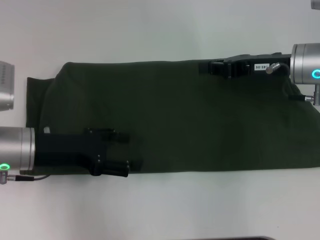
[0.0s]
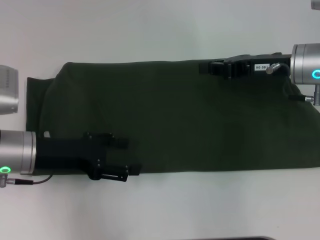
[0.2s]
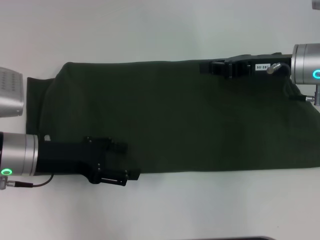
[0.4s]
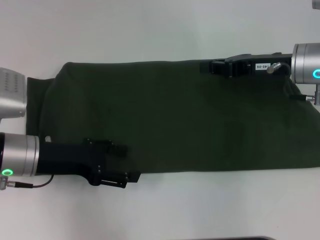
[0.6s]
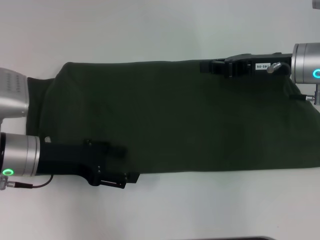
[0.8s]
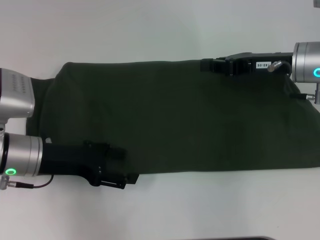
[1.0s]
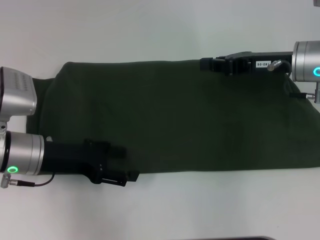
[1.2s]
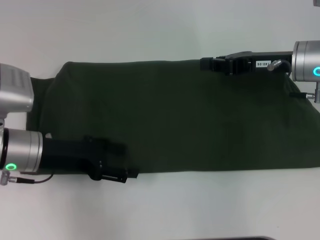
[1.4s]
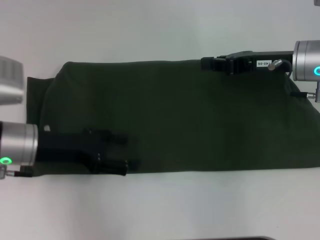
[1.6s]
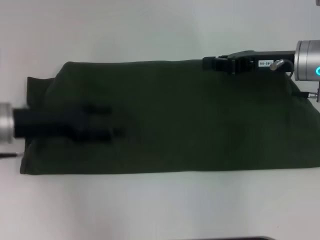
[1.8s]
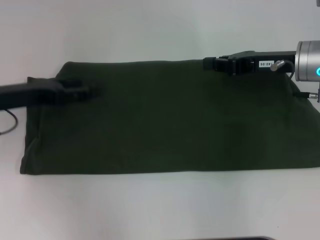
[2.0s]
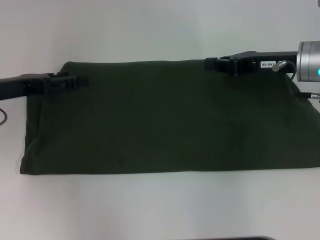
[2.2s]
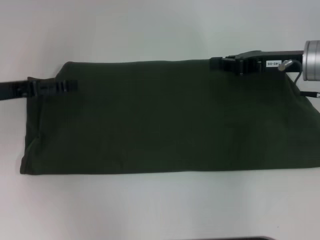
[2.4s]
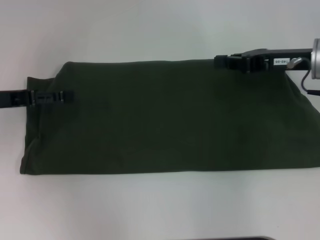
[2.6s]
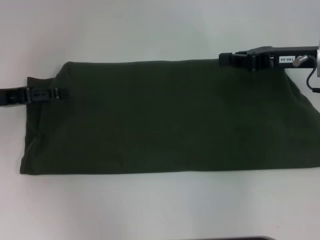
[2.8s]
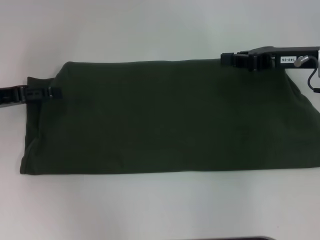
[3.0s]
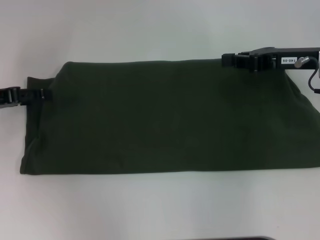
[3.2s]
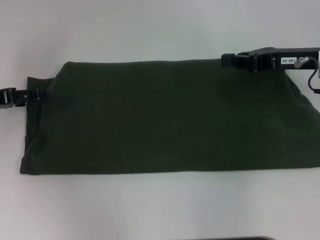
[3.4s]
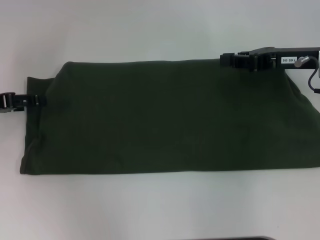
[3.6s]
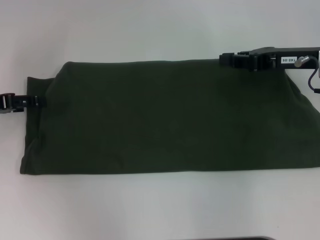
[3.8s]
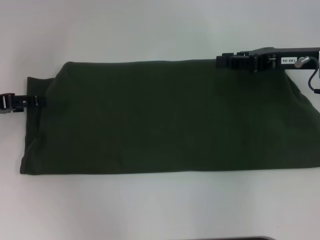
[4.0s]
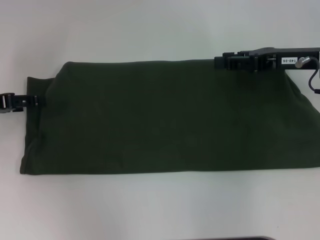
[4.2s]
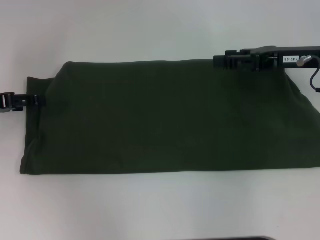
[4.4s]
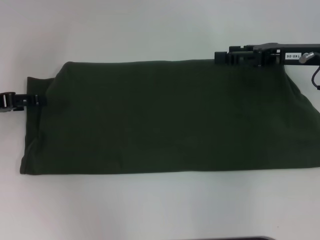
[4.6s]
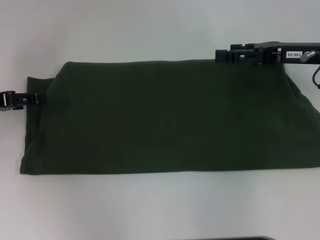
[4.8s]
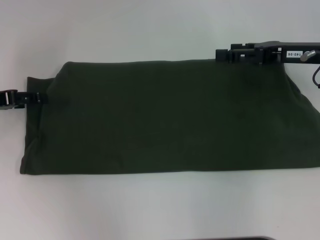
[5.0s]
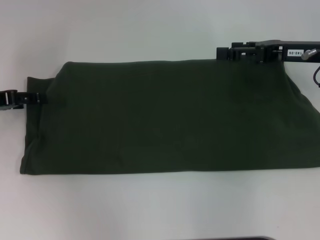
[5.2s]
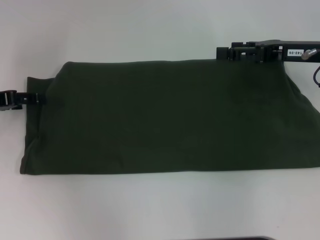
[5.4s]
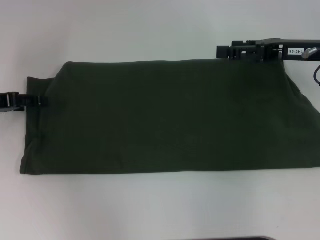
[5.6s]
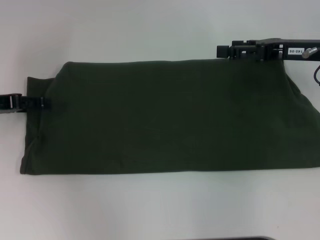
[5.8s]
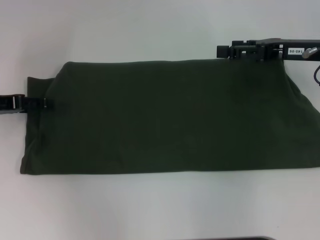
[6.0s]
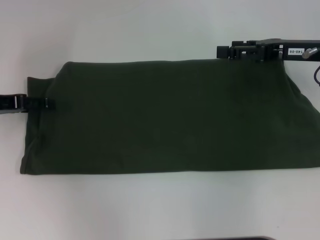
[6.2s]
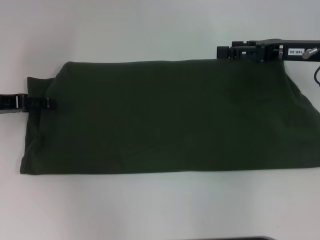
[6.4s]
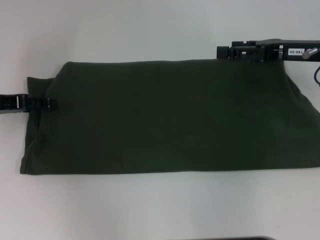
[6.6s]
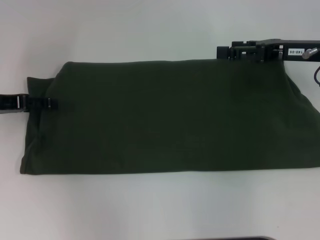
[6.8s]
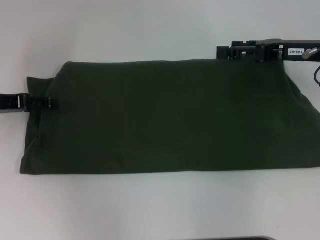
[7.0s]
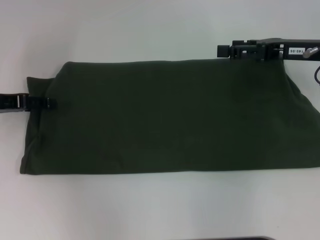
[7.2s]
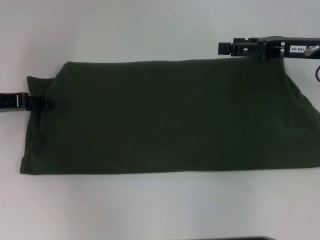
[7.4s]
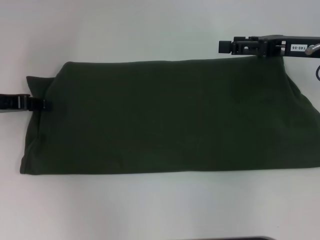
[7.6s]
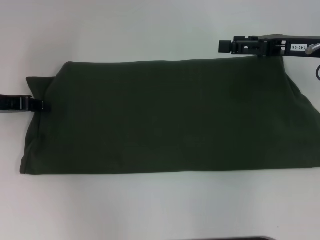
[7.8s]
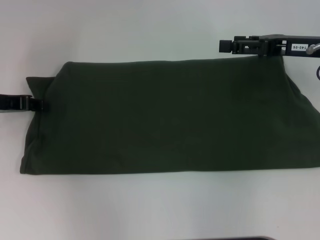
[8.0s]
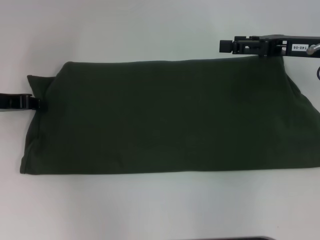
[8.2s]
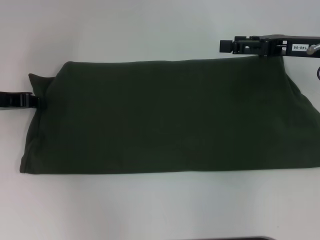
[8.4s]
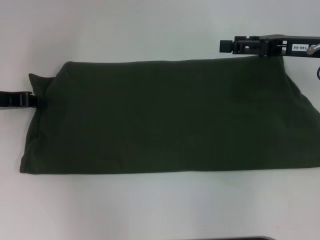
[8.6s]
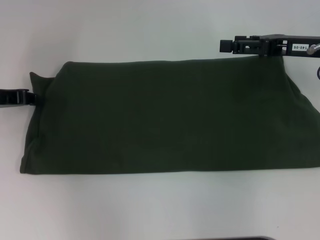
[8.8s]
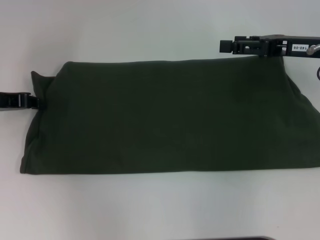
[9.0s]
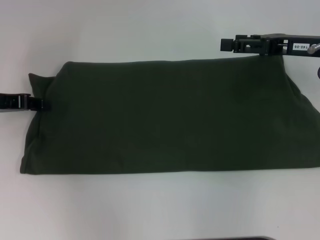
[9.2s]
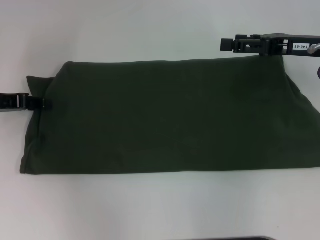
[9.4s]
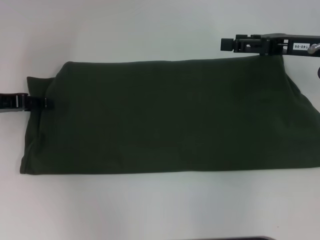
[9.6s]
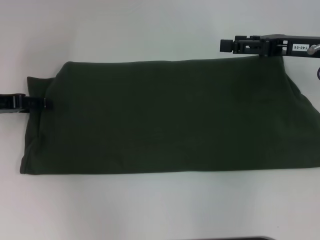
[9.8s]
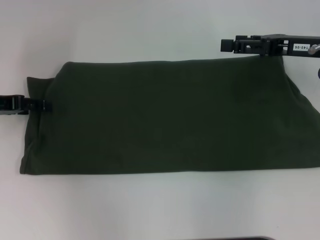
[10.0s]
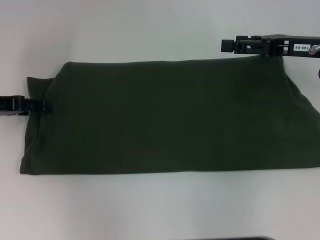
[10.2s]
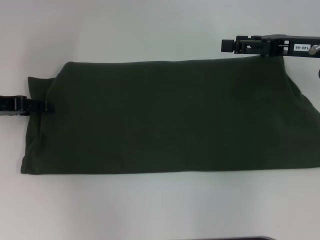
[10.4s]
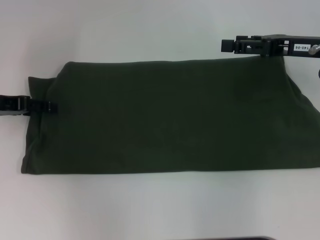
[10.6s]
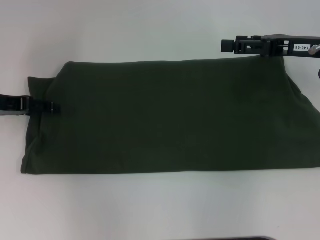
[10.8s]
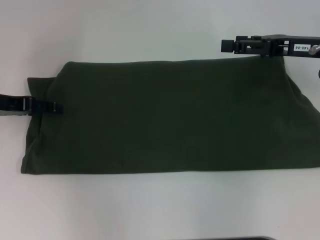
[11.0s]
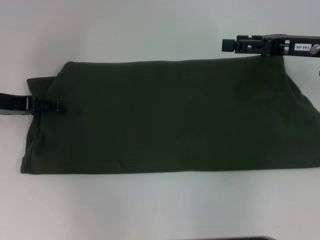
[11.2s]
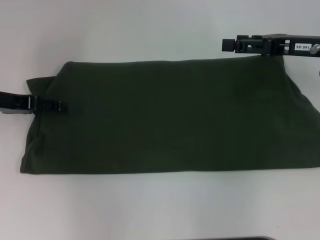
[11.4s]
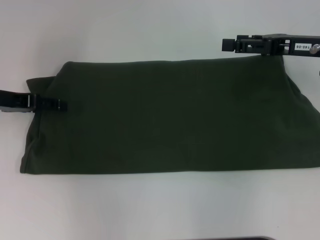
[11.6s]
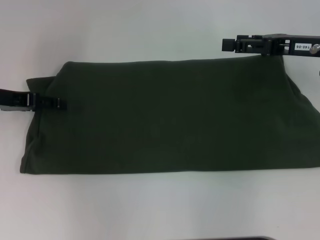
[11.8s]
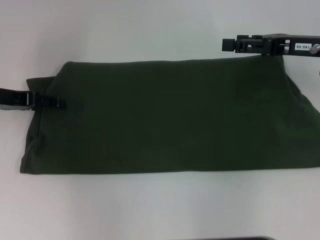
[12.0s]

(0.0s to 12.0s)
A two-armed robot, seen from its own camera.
0.0s - 1.6s: The grippers move only a little.
1.6s - 3.0s: The left gripper goes some 10 cm to the left.
3.0s - 4.4s: The right gripper opens up.
4.4s - 6.0s: The right gripper opens up.
6.0s - 7.6s: Neither gripper changes place.
7.6s - 9.0s: The left gripper closes up.
9.0s - 10.4s: The left gripper opens.
10.4s - 12.0s: The grippers make only small movements.

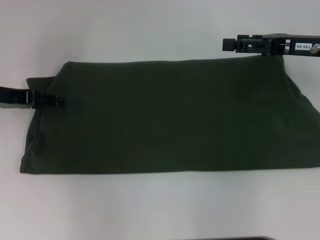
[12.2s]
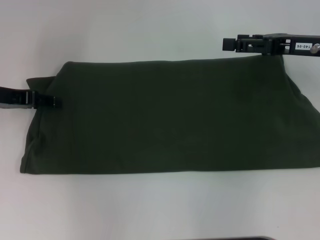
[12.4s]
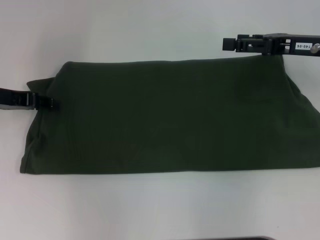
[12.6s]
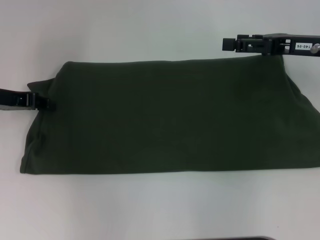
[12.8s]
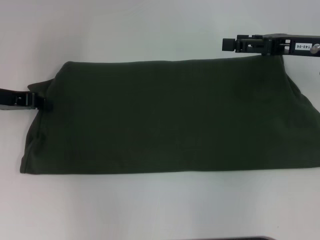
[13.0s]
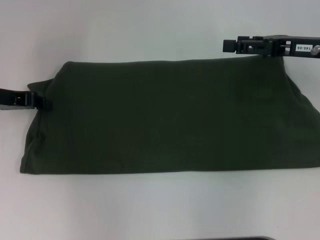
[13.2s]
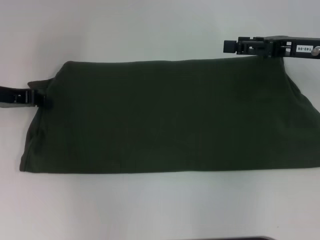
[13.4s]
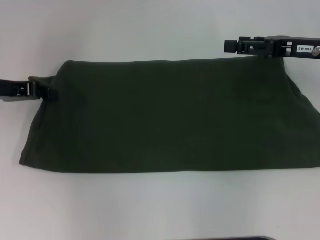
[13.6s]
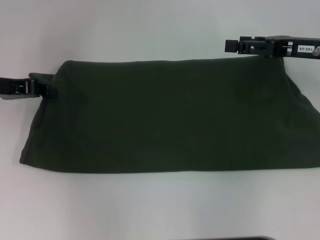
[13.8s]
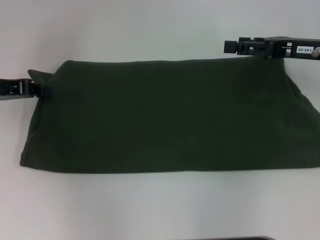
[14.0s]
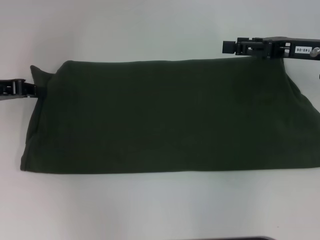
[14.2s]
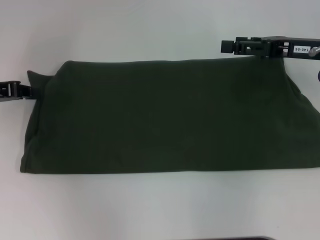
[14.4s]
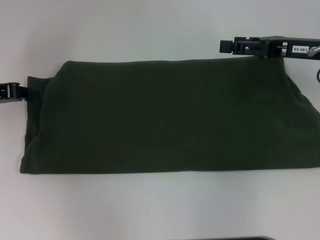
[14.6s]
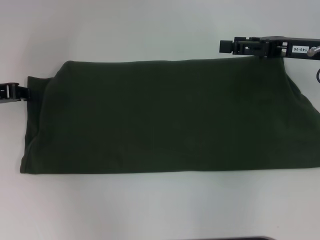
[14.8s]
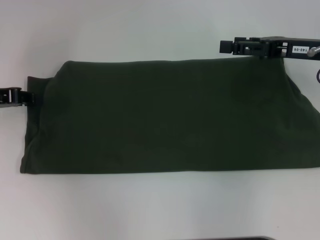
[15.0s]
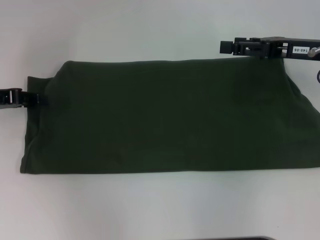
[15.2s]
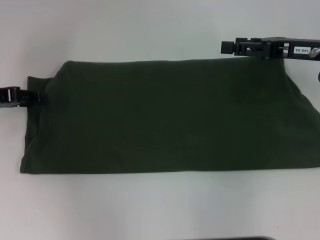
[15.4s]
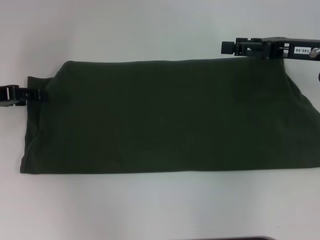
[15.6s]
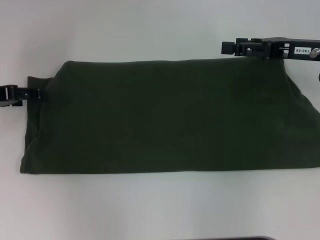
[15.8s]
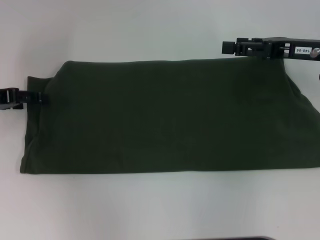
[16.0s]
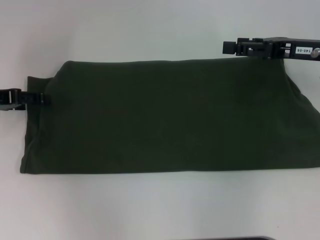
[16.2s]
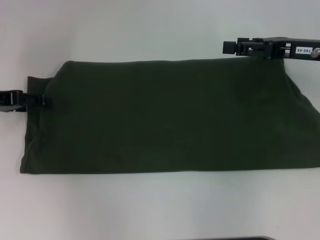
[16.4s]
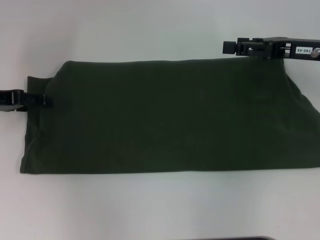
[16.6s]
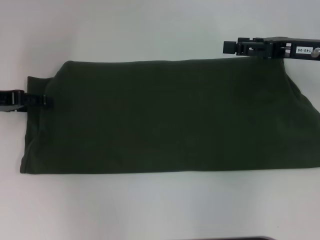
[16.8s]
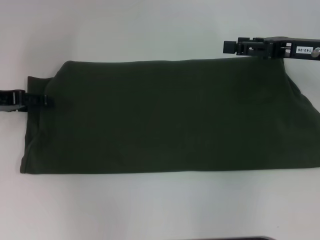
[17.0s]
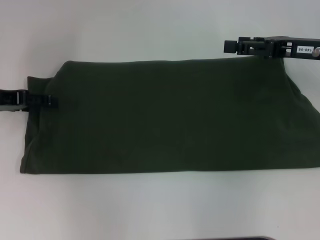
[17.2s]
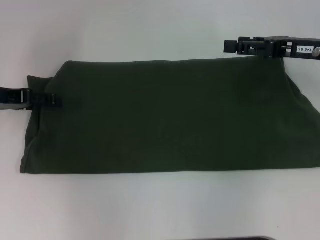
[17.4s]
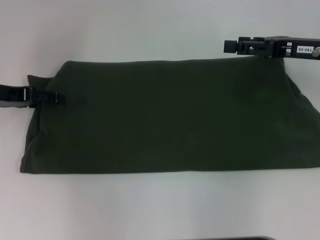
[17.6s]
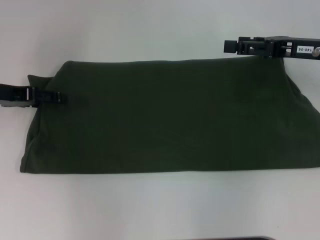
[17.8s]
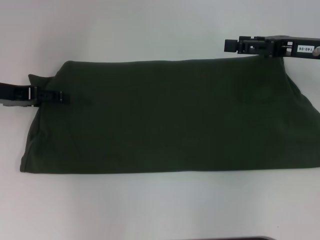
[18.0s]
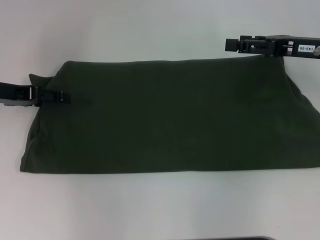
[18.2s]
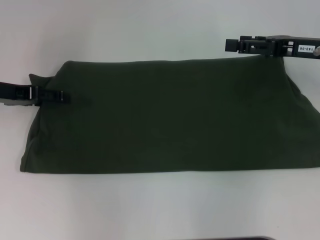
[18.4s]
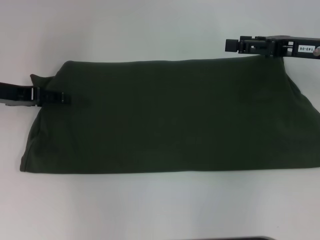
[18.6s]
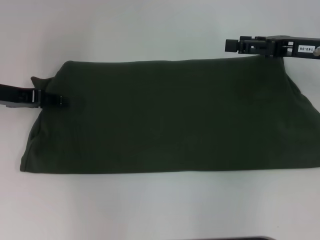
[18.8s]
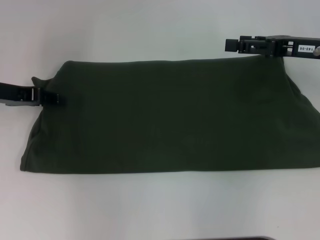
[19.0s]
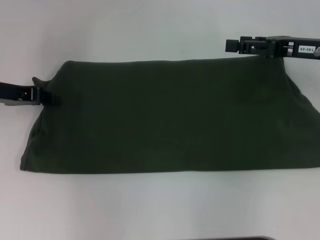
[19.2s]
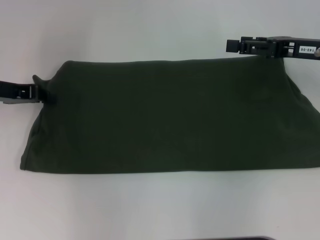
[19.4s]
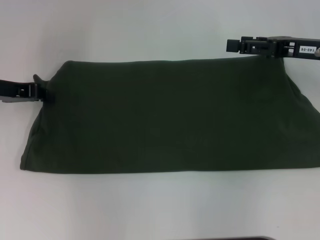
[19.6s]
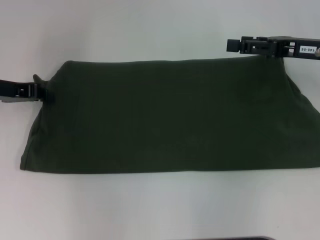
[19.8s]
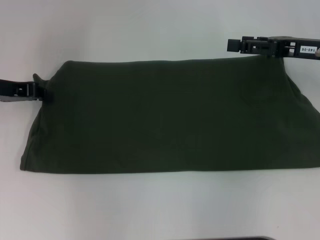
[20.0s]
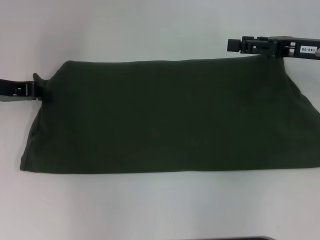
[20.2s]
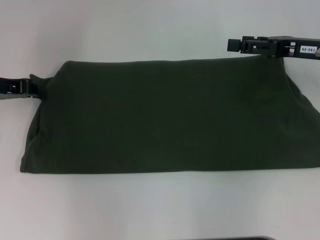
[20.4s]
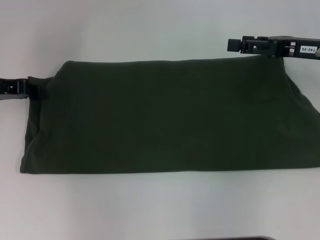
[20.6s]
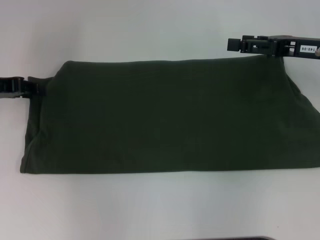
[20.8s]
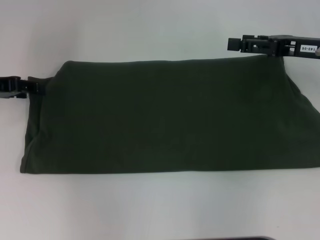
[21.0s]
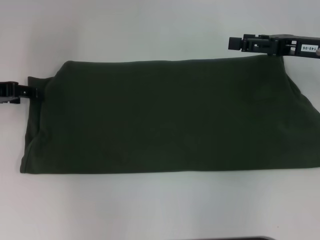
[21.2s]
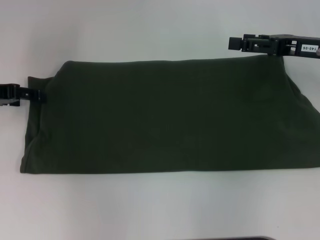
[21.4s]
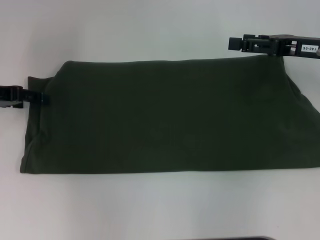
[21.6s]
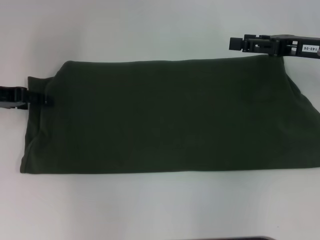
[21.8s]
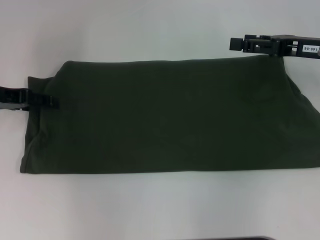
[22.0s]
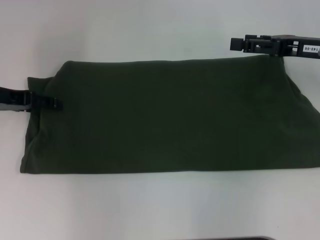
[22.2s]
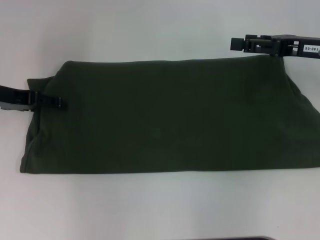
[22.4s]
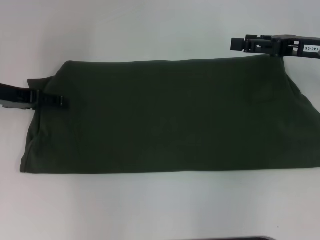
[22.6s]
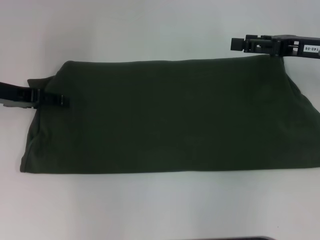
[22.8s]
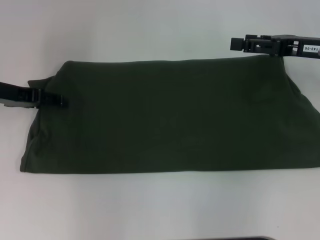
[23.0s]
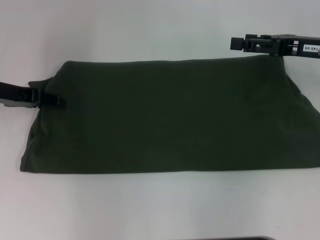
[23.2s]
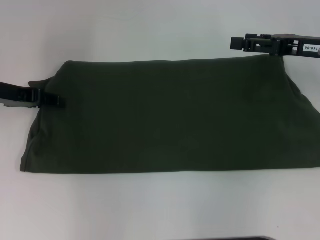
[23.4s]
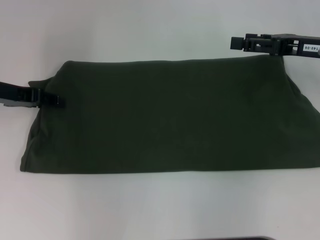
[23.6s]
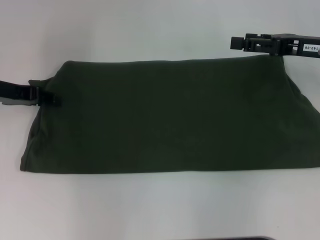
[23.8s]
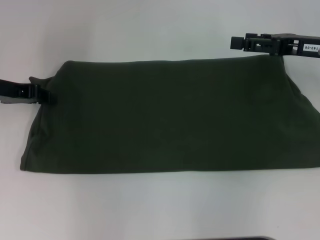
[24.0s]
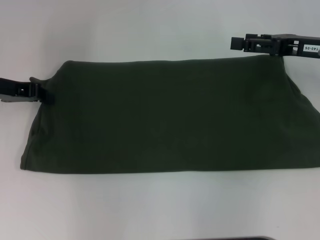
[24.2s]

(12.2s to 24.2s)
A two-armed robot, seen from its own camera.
12.2s - 13.8s: The left gripper closes.
13.8s - 15.2s: The grippers move only a little.
16.6s - 18.2s: There are only small adjustments of the grippers.
18.2s - 19.8s: The left gripper closes its fingers.
19.8s - 21.2s: The left gripper opens up.
21.2s - 22.6s: The grippers make only small movements.
22.6s - 24.2s: The left gripper closes its fingers.
